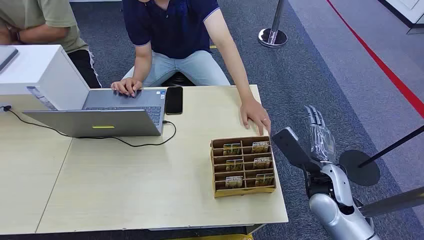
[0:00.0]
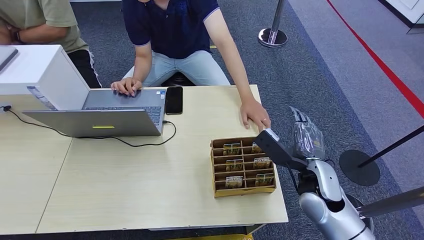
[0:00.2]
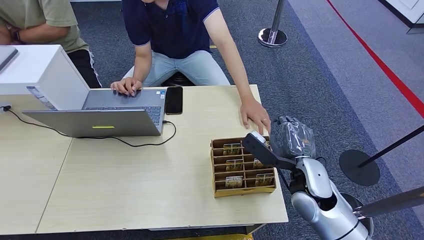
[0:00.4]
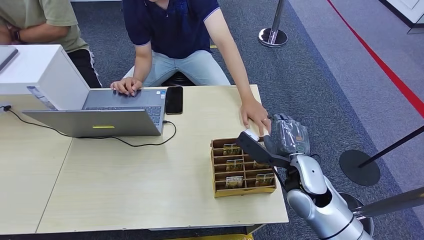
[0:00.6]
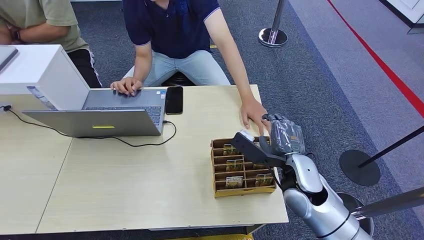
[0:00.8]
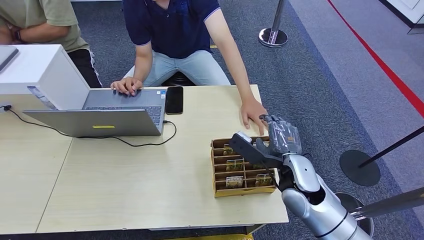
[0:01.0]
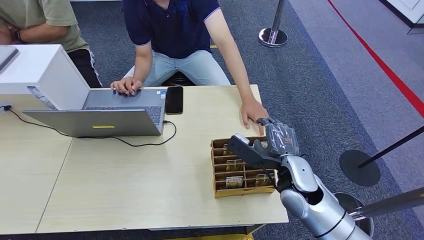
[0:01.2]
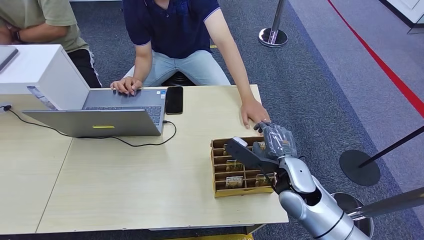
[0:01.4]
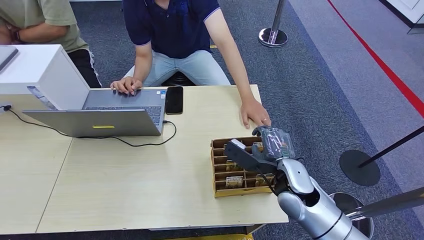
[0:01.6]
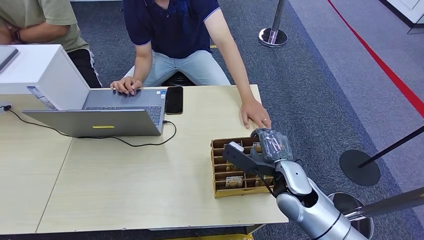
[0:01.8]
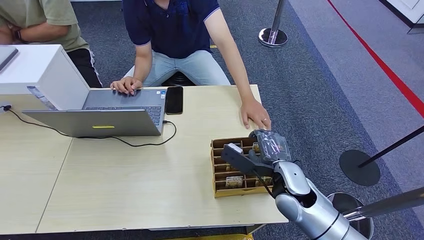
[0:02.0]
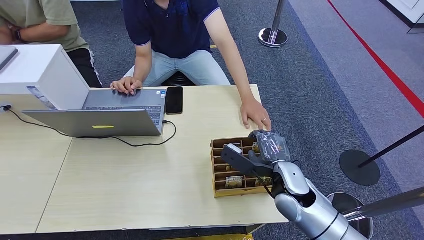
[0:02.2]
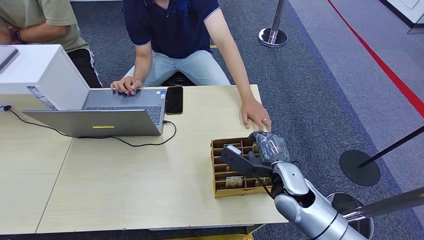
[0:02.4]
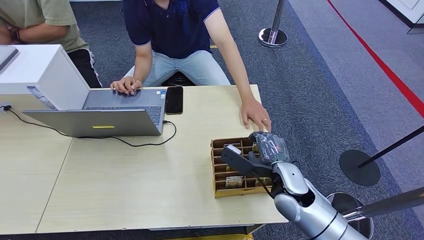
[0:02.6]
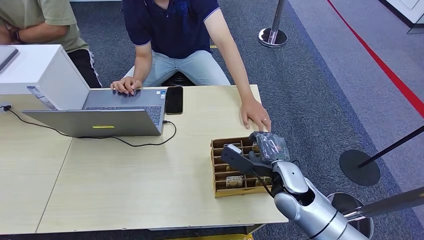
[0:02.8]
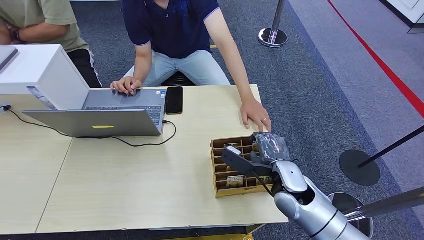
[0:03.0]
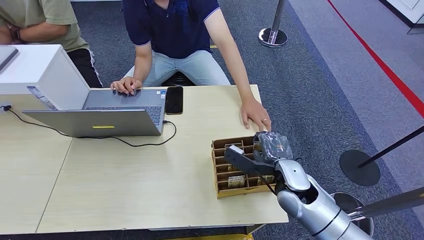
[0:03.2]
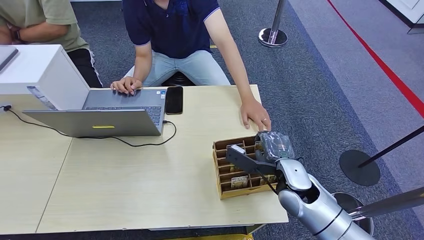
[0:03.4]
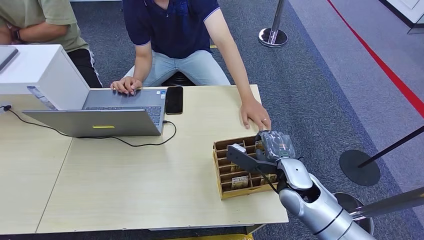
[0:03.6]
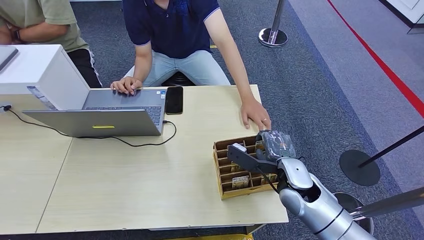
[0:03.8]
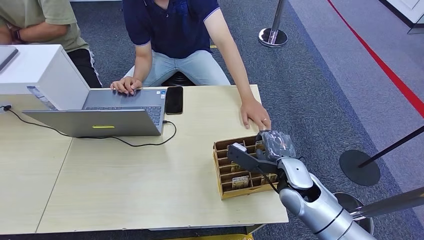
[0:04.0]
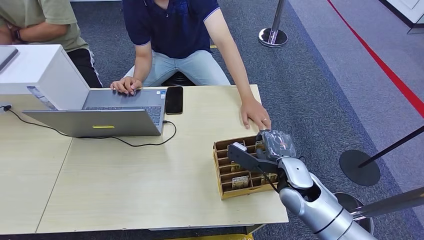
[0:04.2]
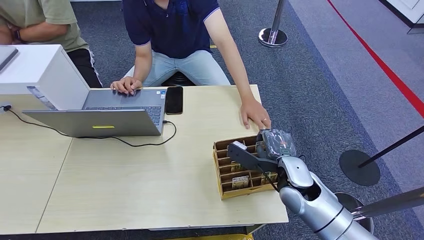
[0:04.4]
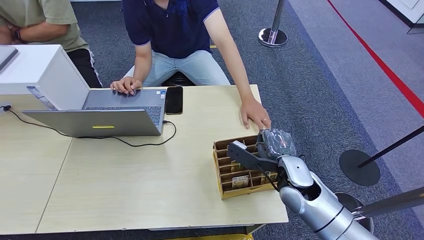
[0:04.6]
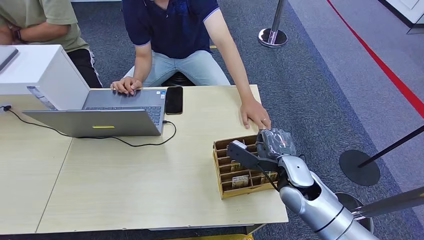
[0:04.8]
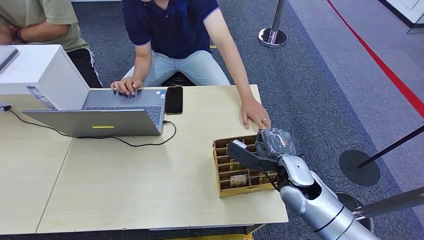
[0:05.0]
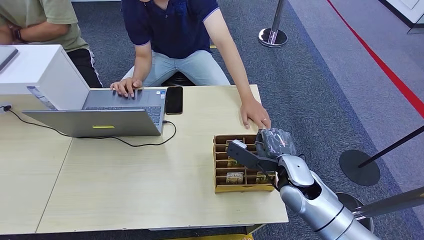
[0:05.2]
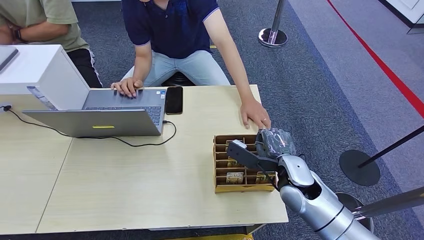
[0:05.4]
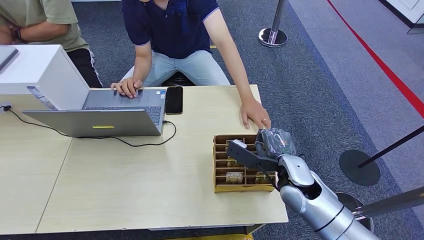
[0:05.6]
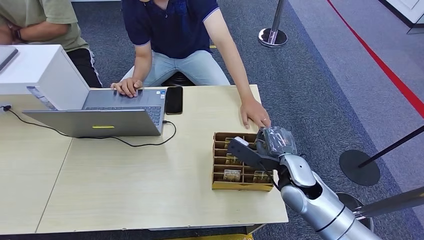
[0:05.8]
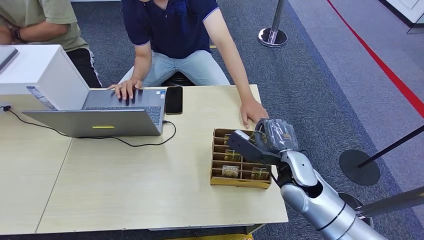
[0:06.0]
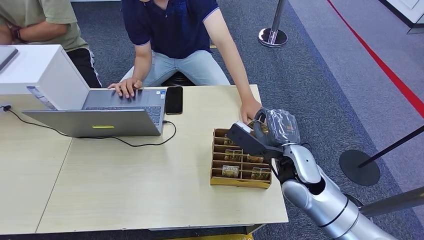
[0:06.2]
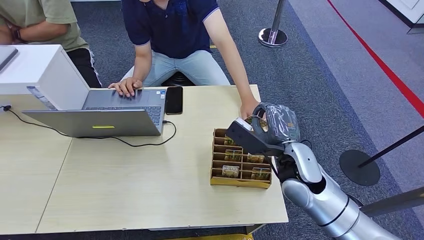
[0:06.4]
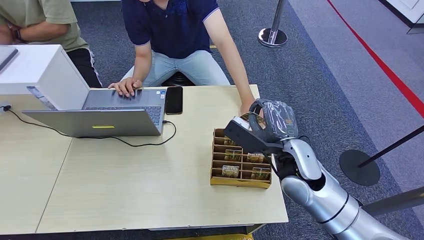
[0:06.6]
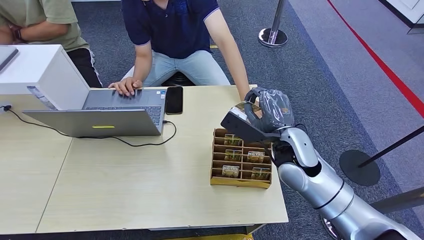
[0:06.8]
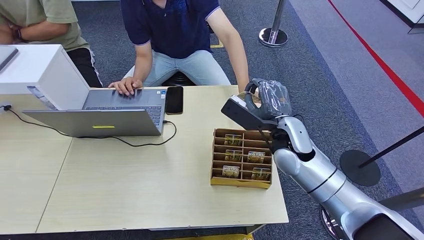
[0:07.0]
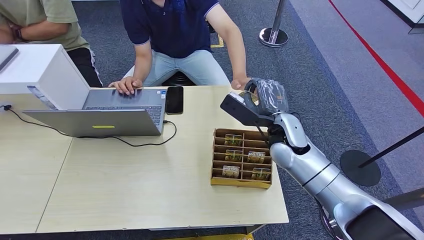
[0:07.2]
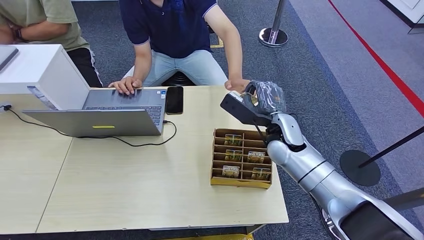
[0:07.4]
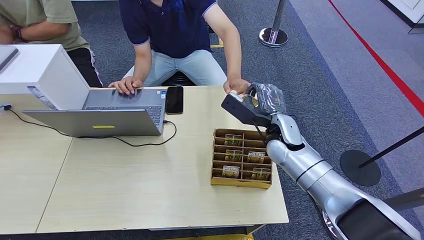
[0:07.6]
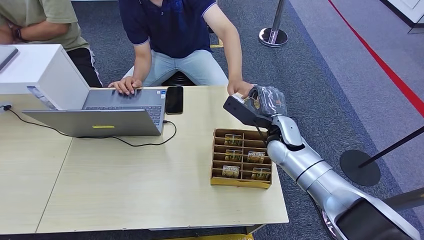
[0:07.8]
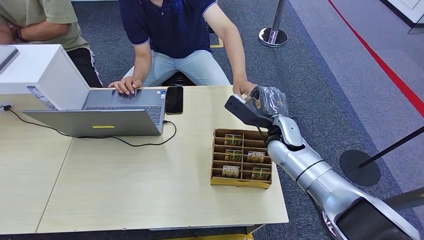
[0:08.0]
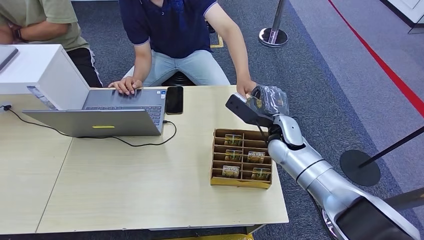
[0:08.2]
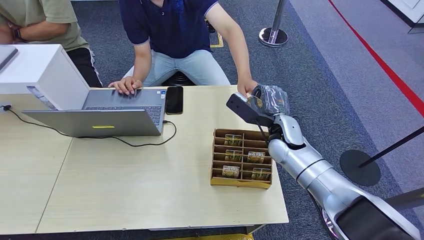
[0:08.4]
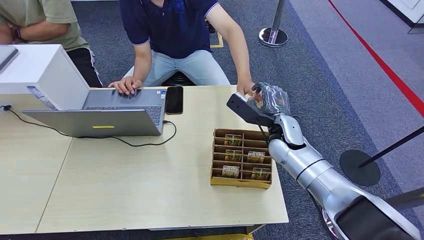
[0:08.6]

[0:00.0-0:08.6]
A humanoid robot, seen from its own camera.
Step, 0:00.0 to 0:06.8: Pick up the key card from the card box.
Step, 0:07.0 to 0:08.6: Hand the key card to the target.
0:01.4 to 0:04.4: The hands make only small movements.
0:04.4 to 0:05.8: Both hands stay about where they are.
0:05.8 to 0:07.2: The right hand is displaced forward and upward by some 10 cm.
0:07.2 to 0:08.6: The hands stay close to where they were, moving slightly.
